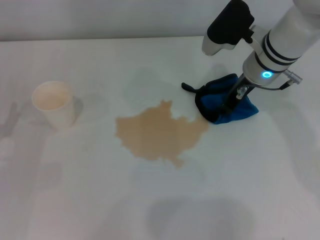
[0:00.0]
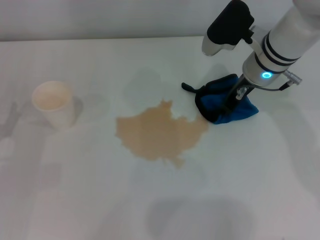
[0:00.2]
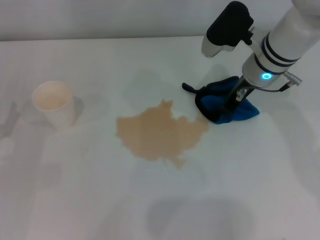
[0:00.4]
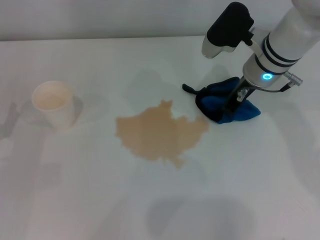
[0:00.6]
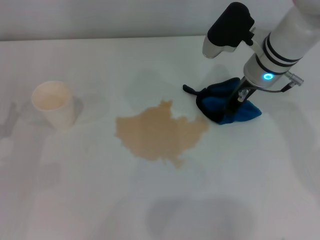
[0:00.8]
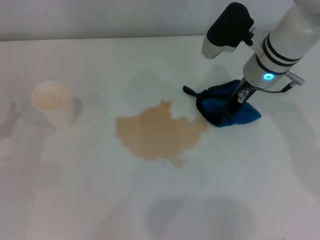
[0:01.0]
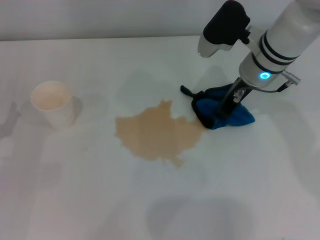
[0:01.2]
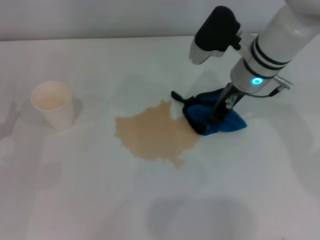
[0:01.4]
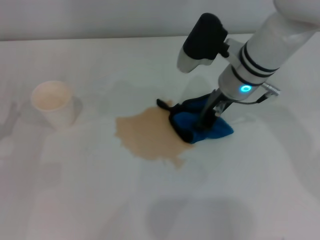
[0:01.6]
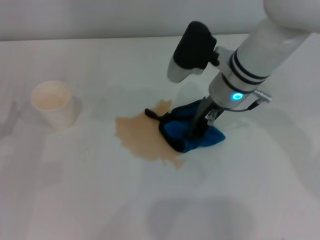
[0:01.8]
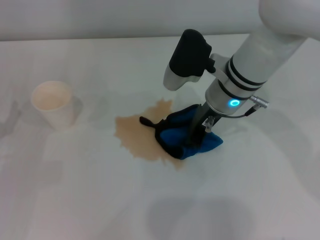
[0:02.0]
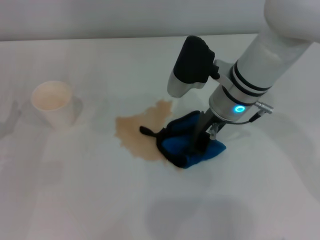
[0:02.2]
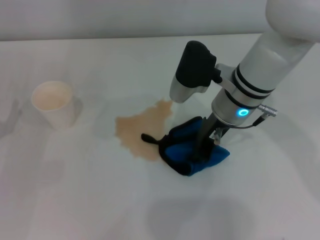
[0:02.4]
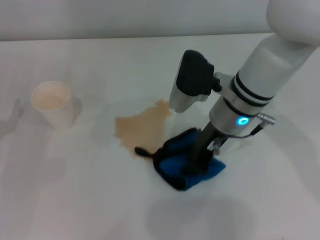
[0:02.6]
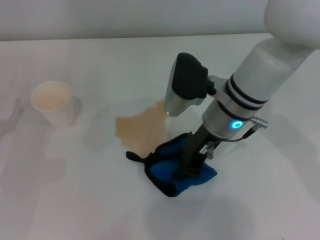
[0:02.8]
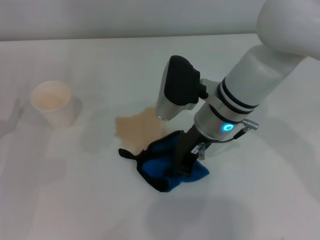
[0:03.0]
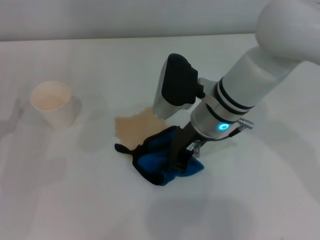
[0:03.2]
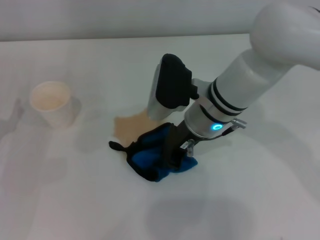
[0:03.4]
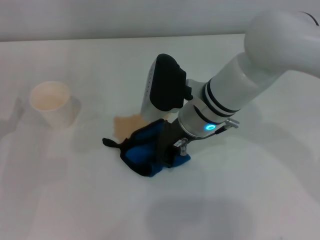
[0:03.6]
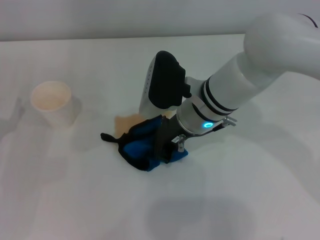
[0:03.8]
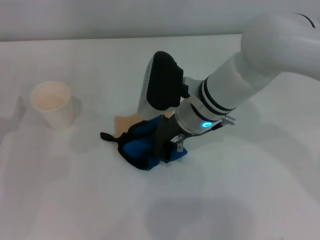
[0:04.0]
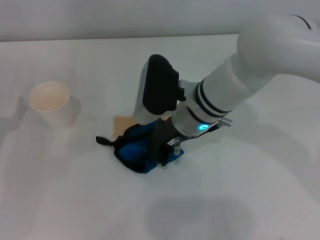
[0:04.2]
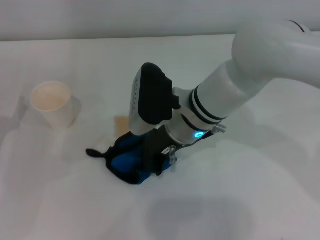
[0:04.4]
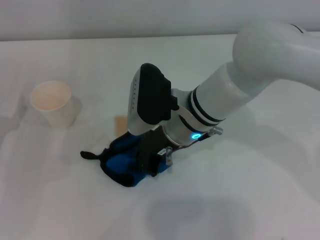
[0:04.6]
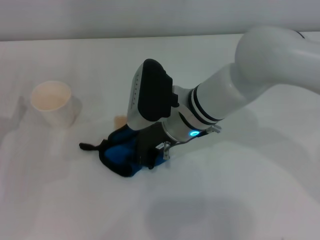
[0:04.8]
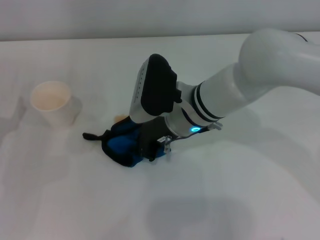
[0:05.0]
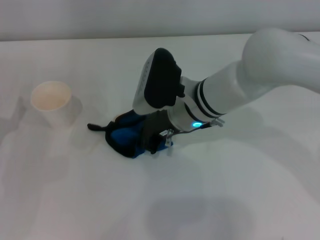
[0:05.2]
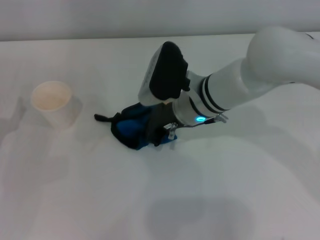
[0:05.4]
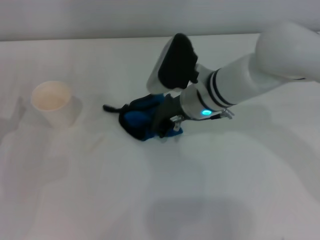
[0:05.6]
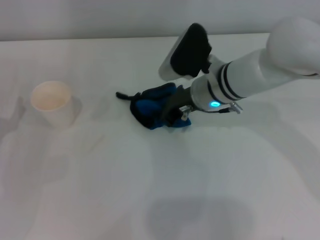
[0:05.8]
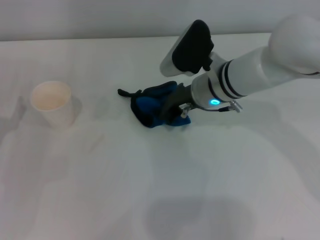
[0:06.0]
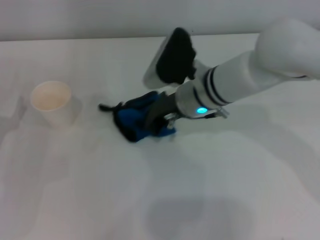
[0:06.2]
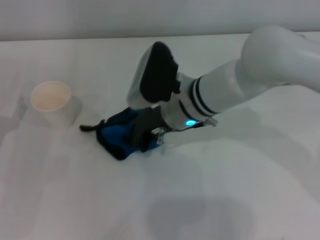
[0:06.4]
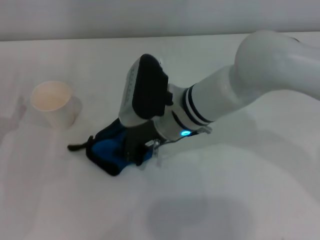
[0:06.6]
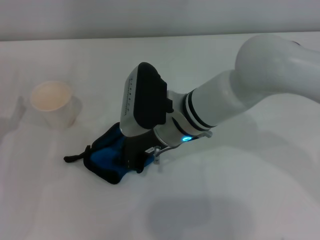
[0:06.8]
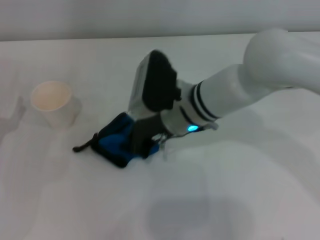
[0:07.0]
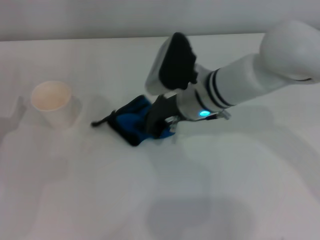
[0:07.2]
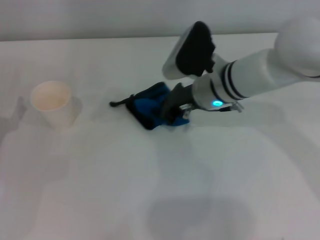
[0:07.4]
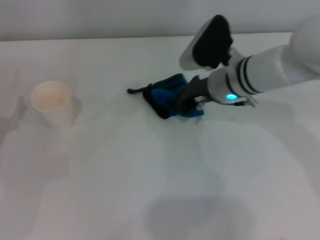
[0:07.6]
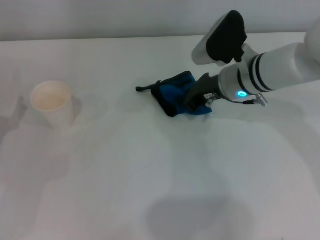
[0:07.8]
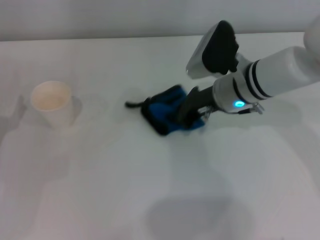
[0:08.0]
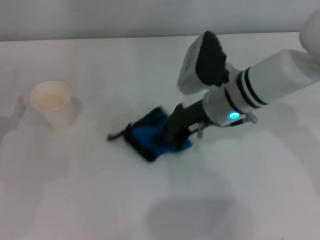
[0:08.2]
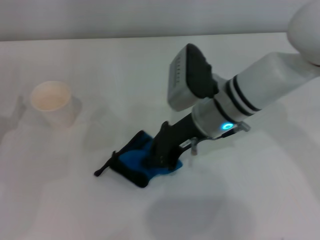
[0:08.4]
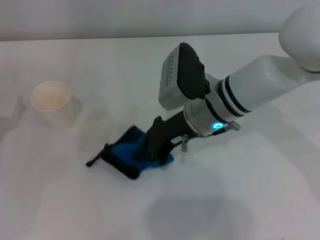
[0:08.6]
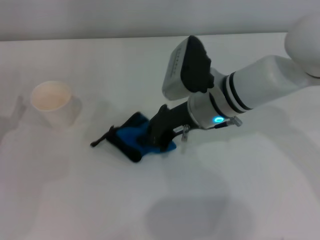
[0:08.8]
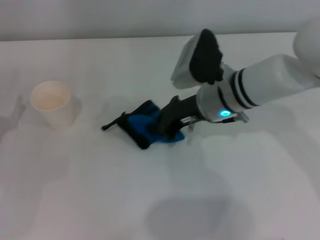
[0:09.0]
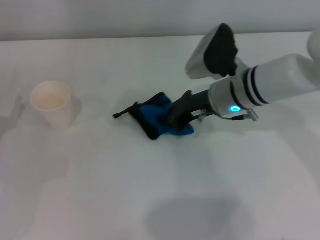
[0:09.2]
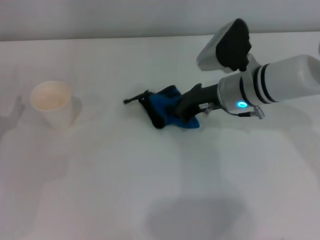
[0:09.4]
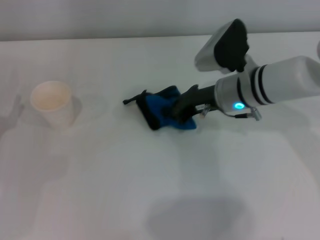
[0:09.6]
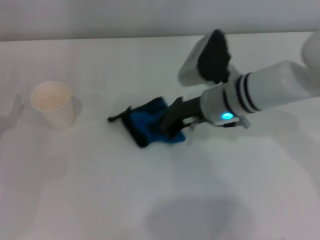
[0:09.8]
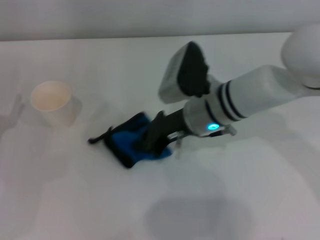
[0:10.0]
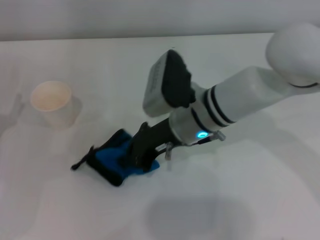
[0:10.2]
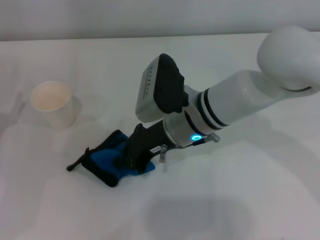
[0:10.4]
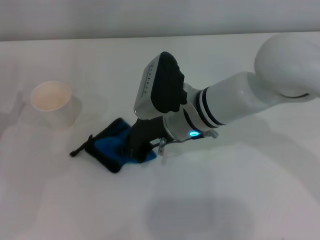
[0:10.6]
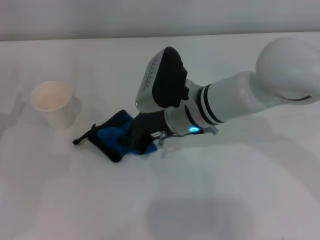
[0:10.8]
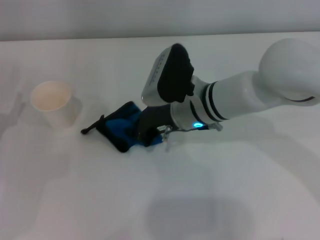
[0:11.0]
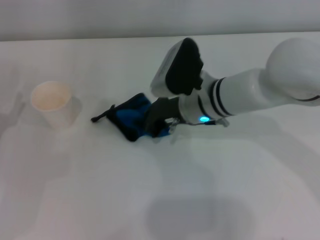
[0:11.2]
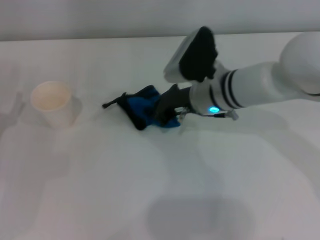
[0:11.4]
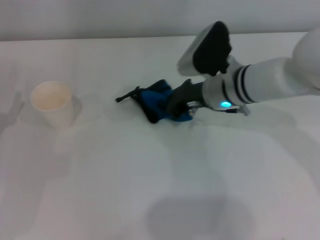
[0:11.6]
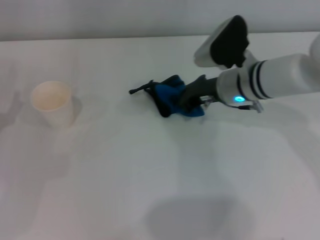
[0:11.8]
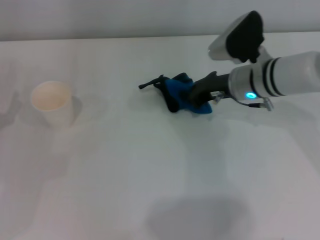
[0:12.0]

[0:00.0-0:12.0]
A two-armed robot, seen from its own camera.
0:00.0 to 0:01.6: The right gripper closes its fingers.
0:01.6 to 0:03.0: The right gripper shifts by approximately 5 cm.
0:03.0 to 0:04.4: The grippers move only a little.
0:04.4 to 0:06.0: The right gripper travels to the right by some 5 cm.
0:06.0 to 0:07.6: The right gripper reaches about 5 cm to the left, then returns.
0:09.0 to 0:10.4: The right gripper goes approximately 5 cm to the left.
0:10.4 to 0:12.0: The right gripper travels to the right and forward by approximately 10 cm.

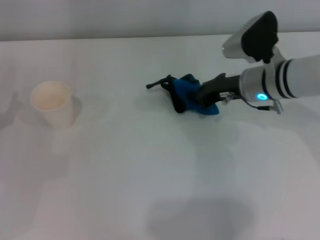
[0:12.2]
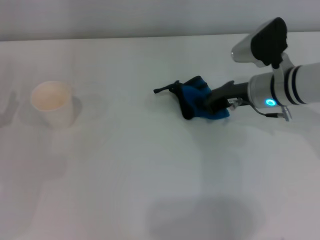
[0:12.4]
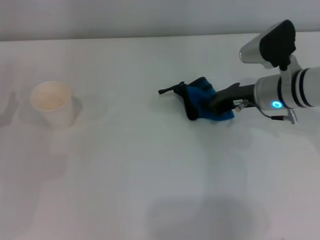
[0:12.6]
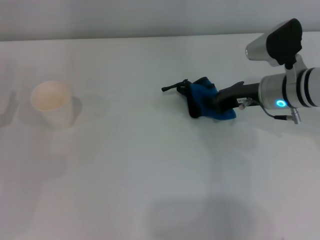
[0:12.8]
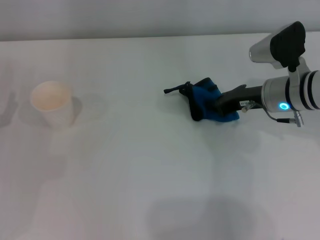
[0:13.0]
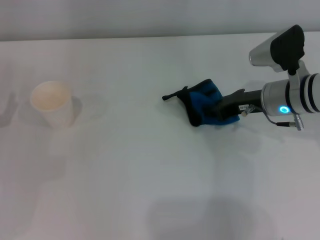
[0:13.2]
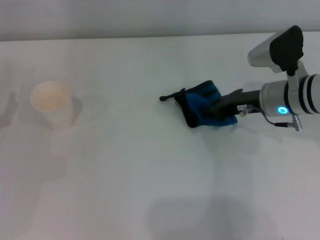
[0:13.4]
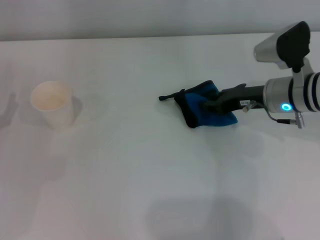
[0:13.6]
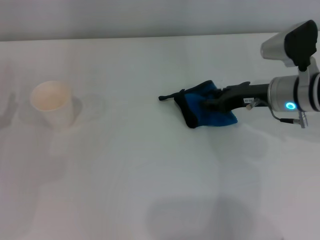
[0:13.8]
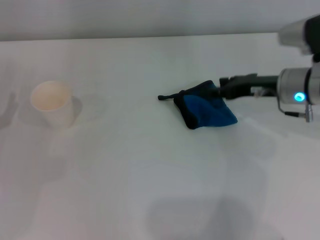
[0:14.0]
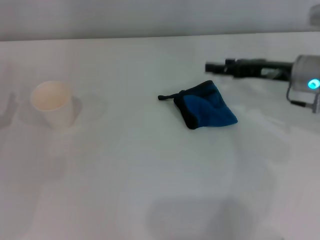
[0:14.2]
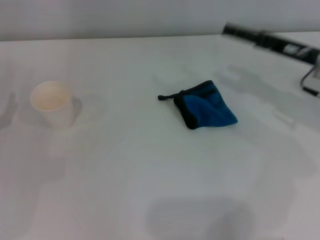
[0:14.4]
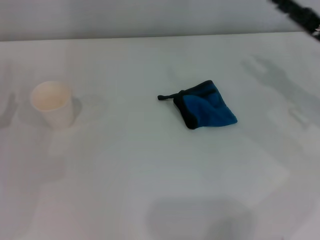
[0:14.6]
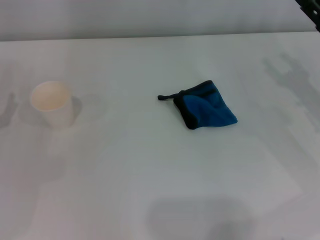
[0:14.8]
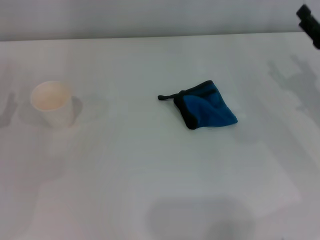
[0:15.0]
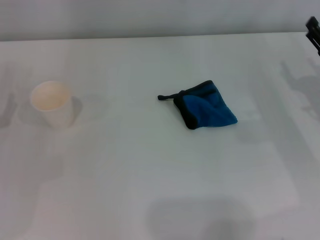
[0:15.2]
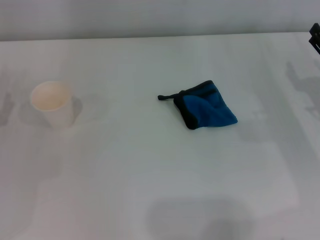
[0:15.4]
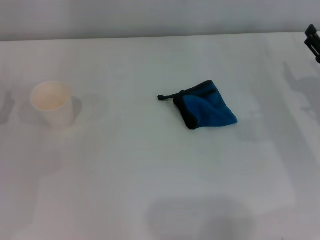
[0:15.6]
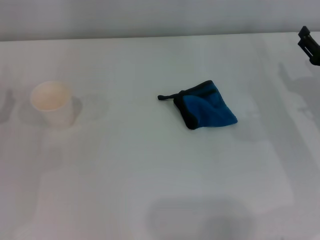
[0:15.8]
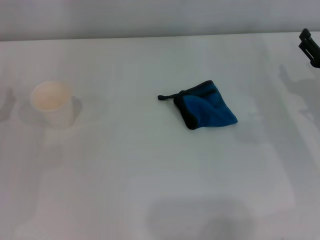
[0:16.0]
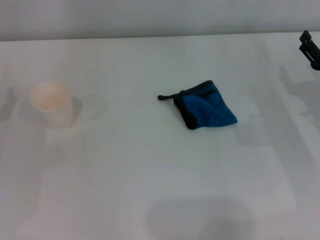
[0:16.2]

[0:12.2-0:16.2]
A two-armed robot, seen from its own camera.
Step, 0:12.8 to 0:13.4: Place the rag on the table with the right gripper.
0:12.2 to 0:13.6: The grippers make only small movements.
0:13.6 to 0:14.8: The right gripper is displaced to the right by approximately 10 cm, and opens.
0:14.8 to 0:16.2: The right gripper shifts by roughly 5 cm.

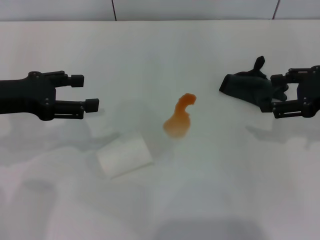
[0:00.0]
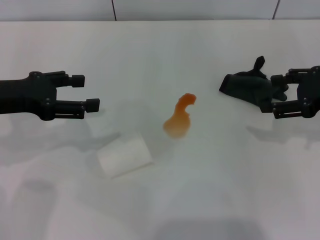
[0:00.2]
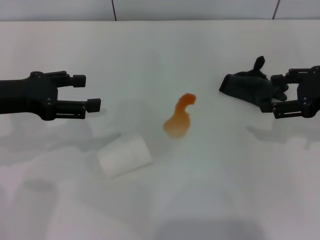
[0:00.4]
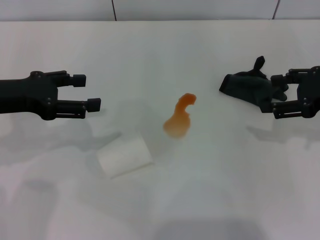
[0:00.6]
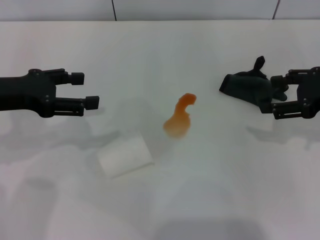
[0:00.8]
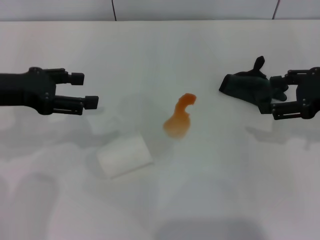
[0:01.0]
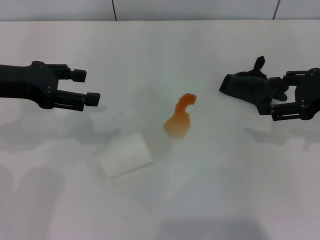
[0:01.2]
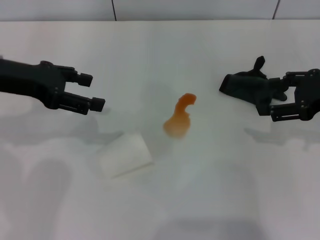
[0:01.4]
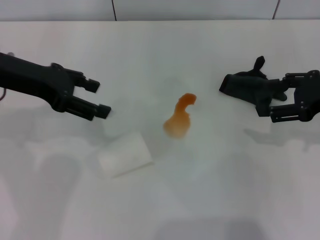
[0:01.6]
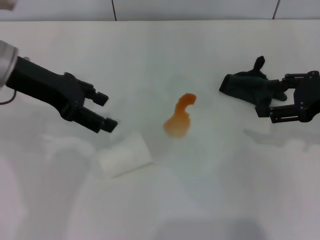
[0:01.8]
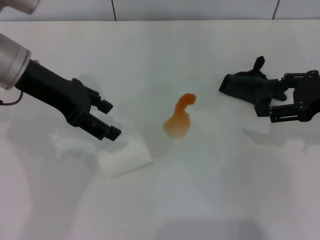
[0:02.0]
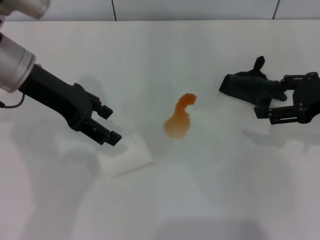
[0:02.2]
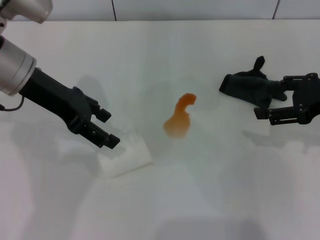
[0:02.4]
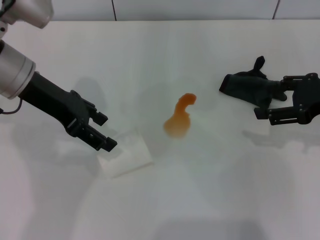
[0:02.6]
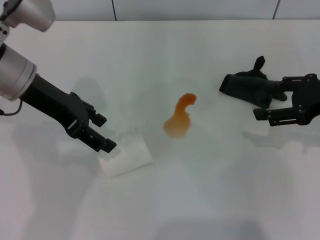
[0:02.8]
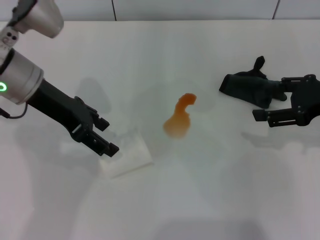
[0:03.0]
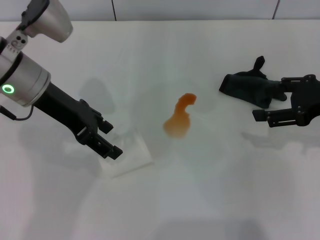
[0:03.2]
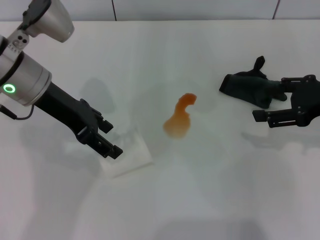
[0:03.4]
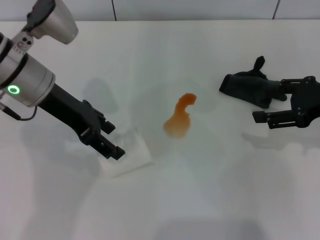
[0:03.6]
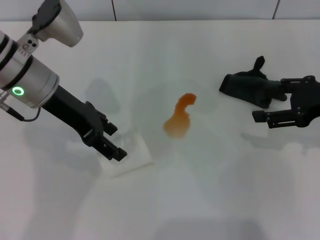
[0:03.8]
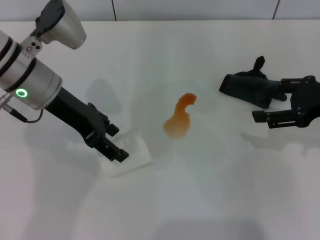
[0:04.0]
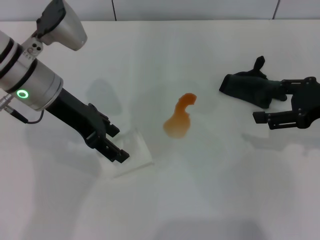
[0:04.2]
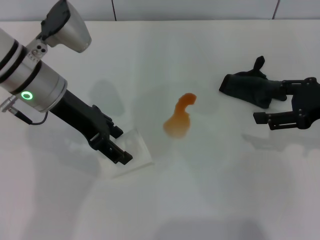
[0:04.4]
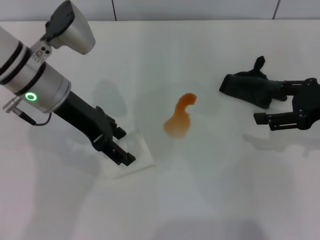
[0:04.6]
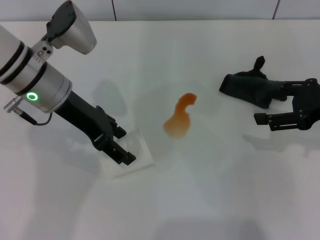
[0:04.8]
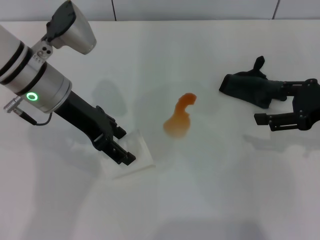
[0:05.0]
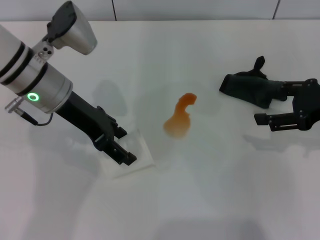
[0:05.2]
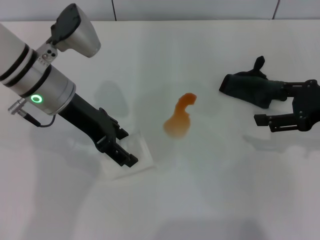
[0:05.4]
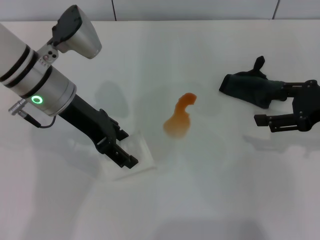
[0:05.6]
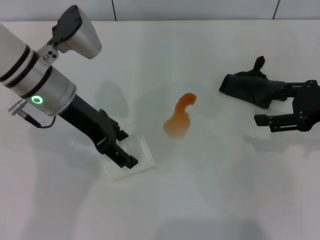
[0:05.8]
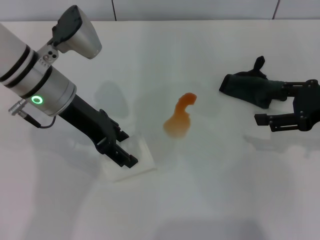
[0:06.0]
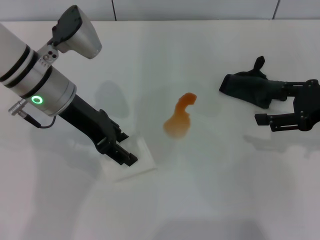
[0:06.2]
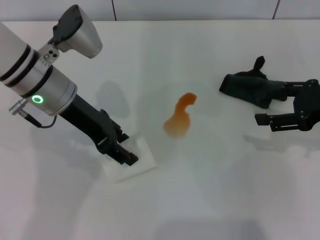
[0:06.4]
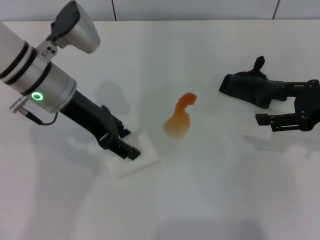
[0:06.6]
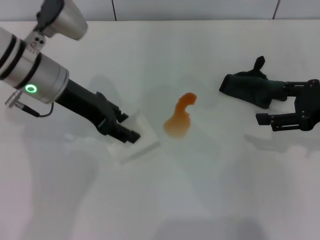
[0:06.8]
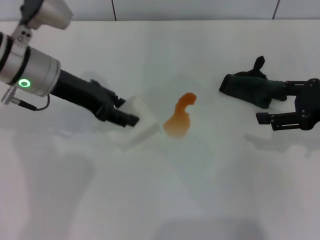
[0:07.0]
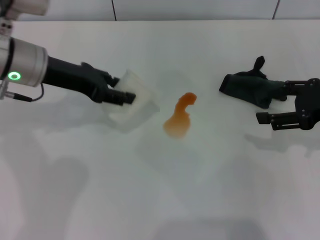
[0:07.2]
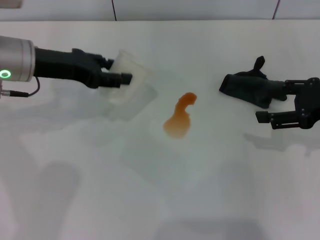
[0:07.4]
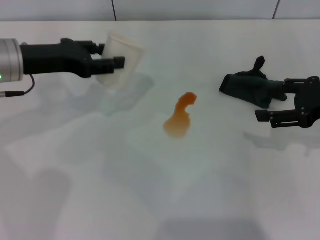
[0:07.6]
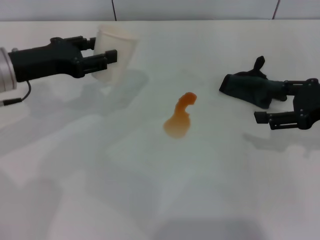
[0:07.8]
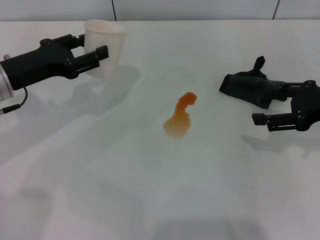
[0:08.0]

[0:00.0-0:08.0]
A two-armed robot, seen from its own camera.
Step, 0:00.0 to 0:06.4: Grasp the paper cup with the left gripper.
0:00.0 to 0:01.6: The left gripper ends up some 5 cm from where it was.
0:01.6 to 0:03.2: The left gripper shifts about 5 cm to the right.
0:03.2 to 0:04.8: The grippers make only small movements.
0:04.8 to 0:06.4: The left gripper closes.
0:06.4 to 0:08.0: The left gripper goes about 10 cm to the left.
